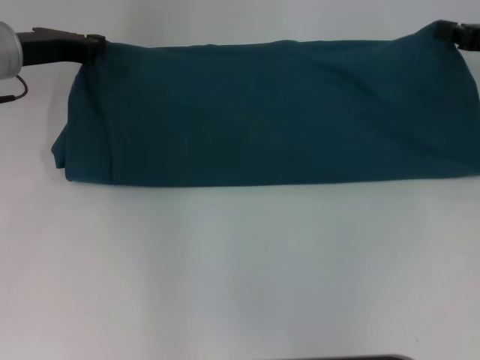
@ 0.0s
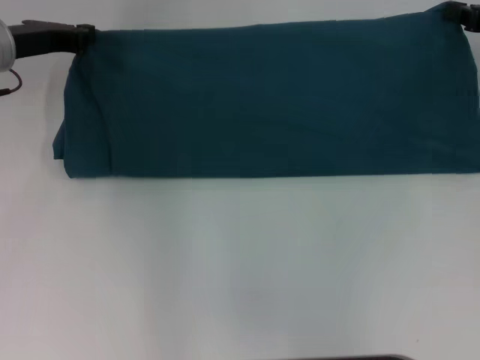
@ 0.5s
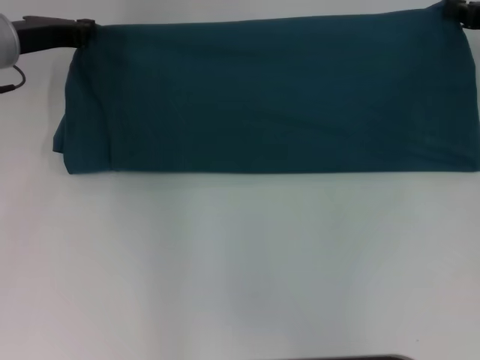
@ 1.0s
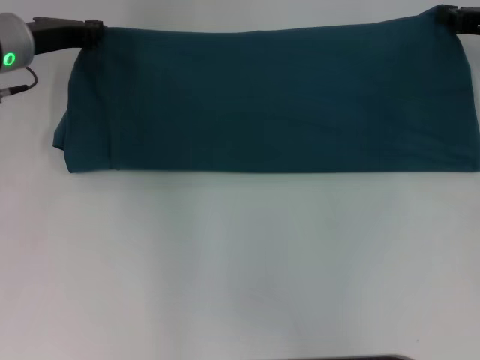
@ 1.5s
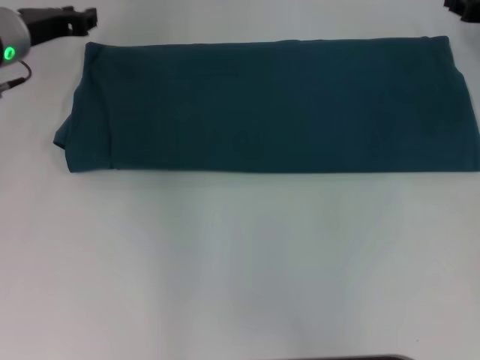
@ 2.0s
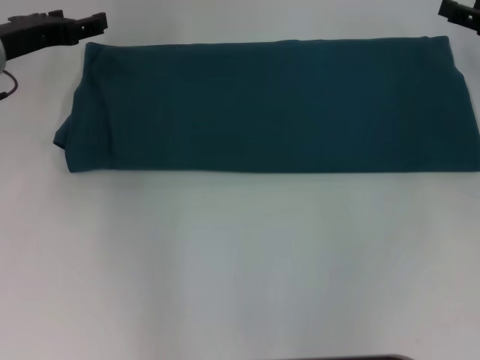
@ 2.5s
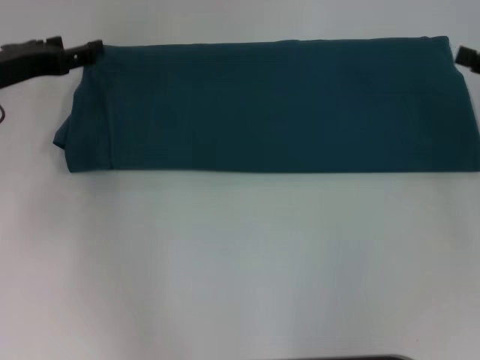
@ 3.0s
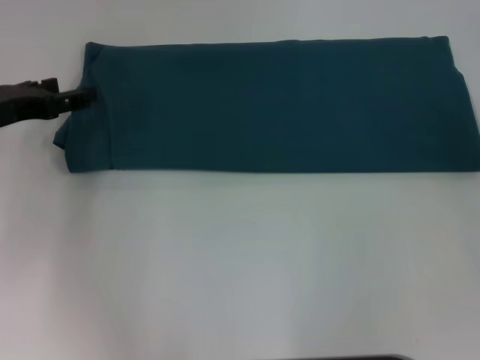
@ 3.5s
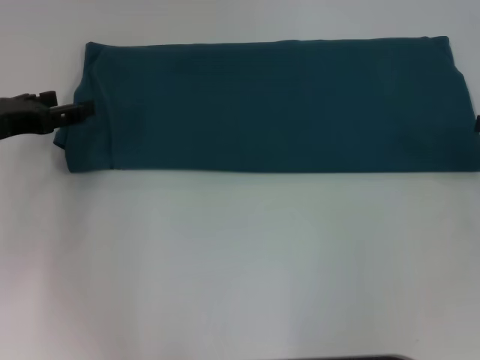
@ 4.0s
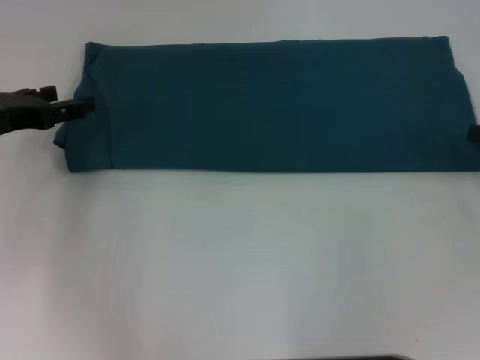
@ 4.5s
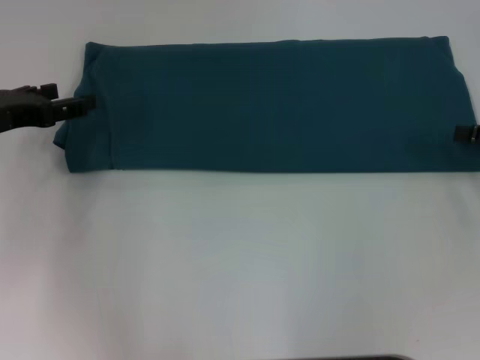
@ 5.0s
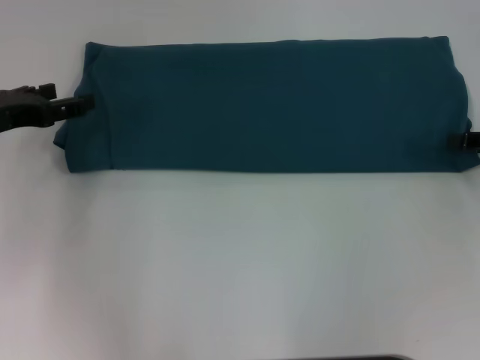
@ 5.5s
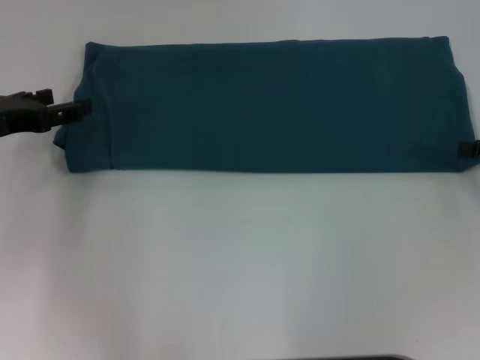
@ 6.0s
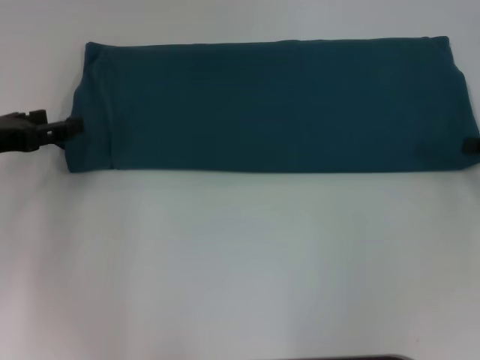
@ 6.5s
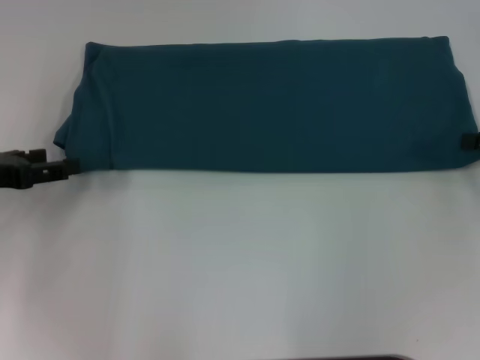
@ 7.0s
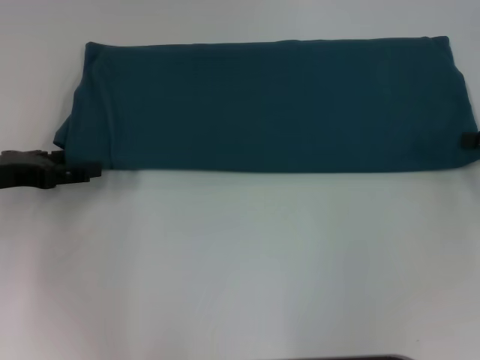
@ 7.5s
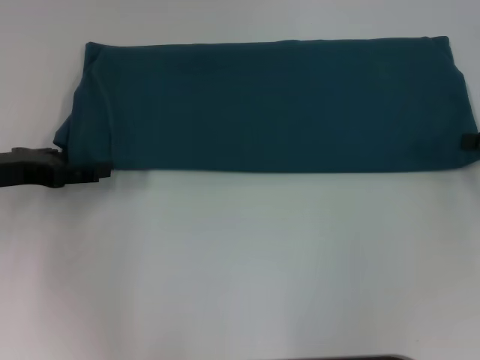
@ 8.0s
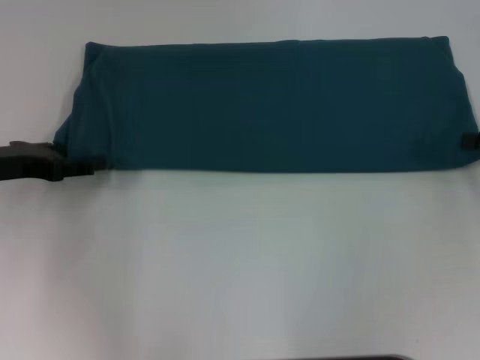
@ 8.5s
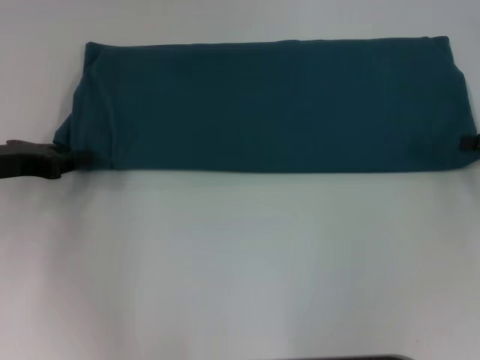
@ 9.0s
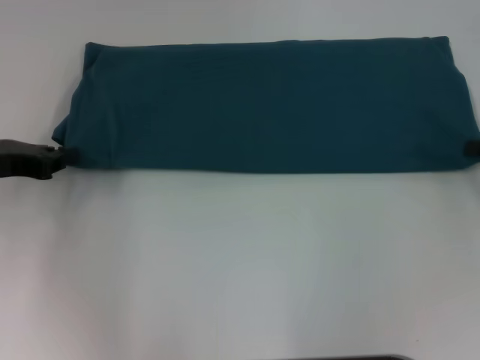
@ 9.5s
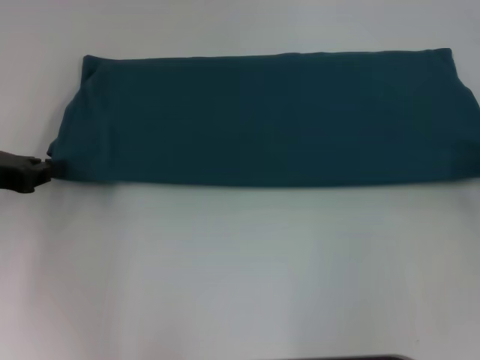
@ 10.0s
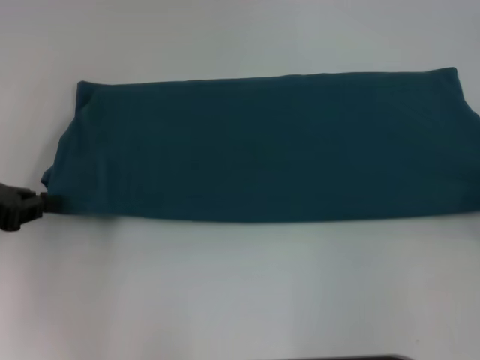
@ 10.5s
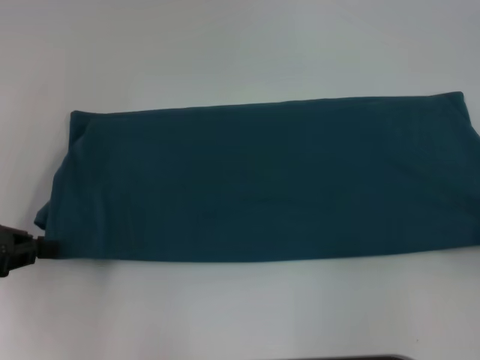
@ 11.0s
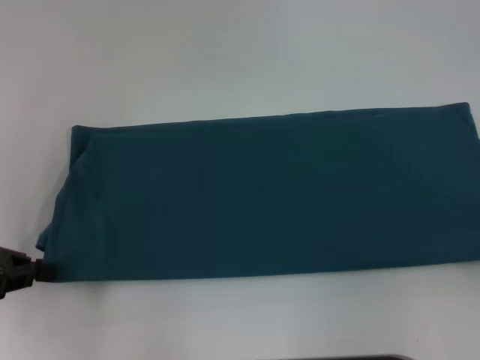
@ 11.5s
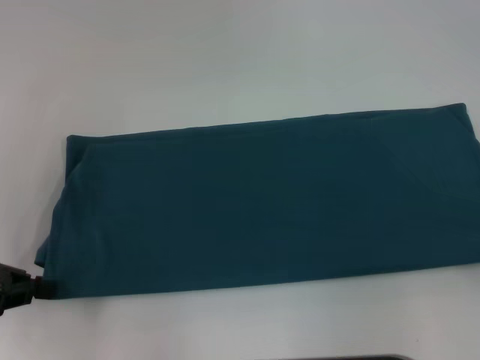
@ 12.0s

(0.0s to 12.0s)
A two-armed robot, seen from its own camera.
Step, 0.0s - 2.0s: Fold the clothes to the left.
Step, 0.0s - 2.0s: Fold the clothes to the right.
0.0s - 2.0s: The grippers move only a little.
2.0s - 4.0s: The left gripper moves backward and to the left, roughly 15 cm, and opens up. The right gripper shifts approximately 15 cm backward and to the right, and opens.
6.0s - 8.0s: There are only small adjustments of the grippers.
8.0s - 10.0s: The left gripper closes its fingers.
10.0s - 12.0s: The two grippers go some 10 cm backward.

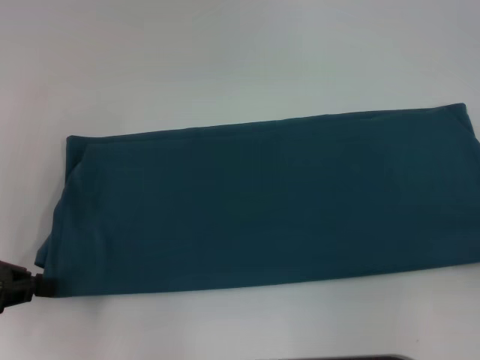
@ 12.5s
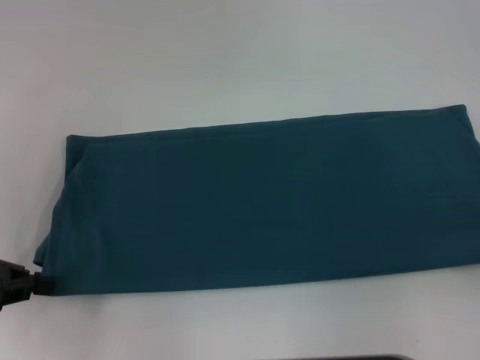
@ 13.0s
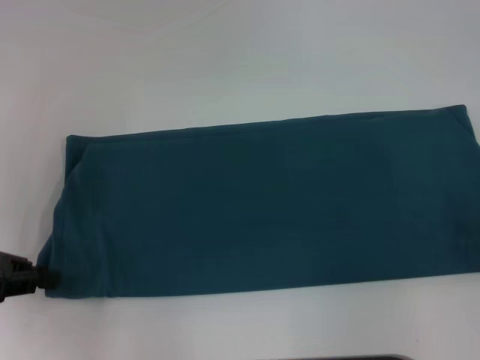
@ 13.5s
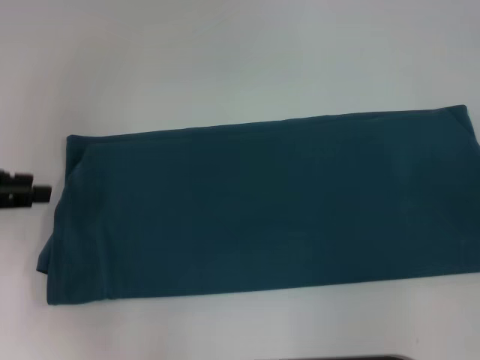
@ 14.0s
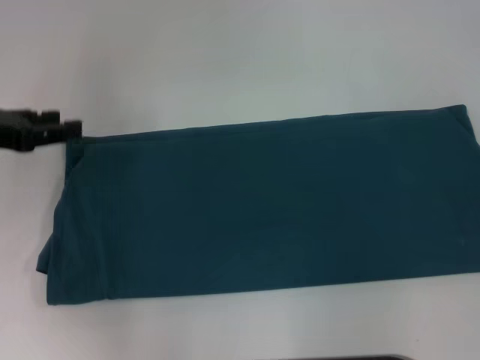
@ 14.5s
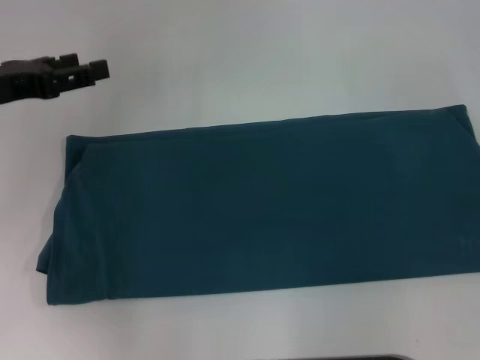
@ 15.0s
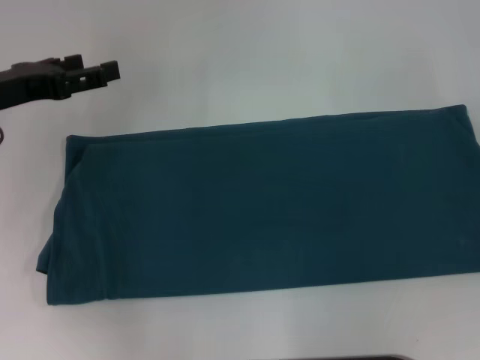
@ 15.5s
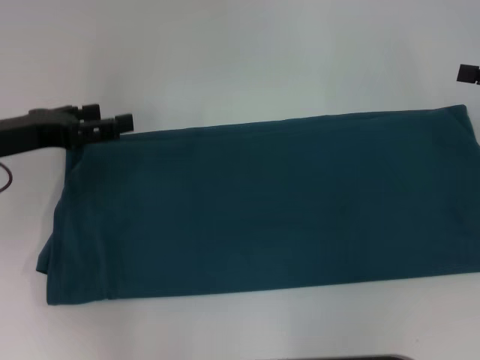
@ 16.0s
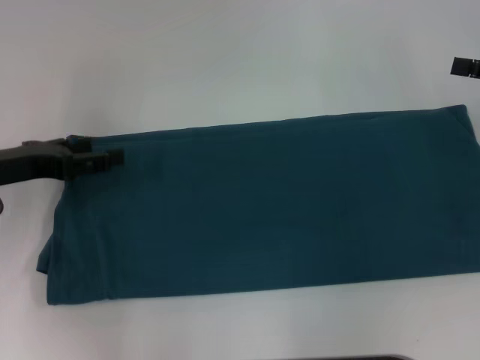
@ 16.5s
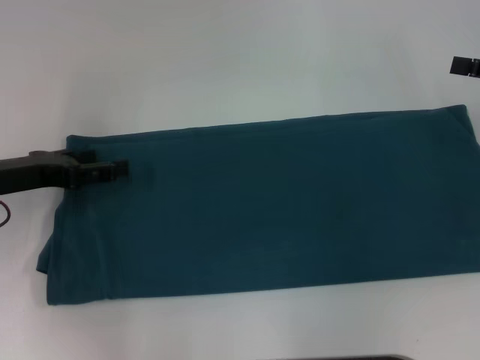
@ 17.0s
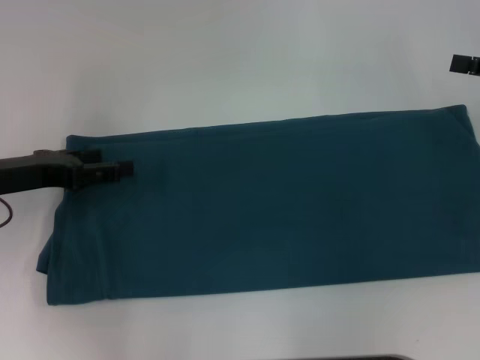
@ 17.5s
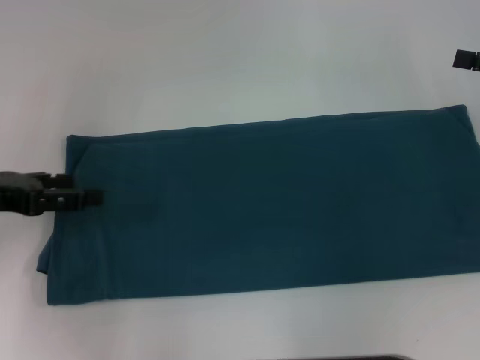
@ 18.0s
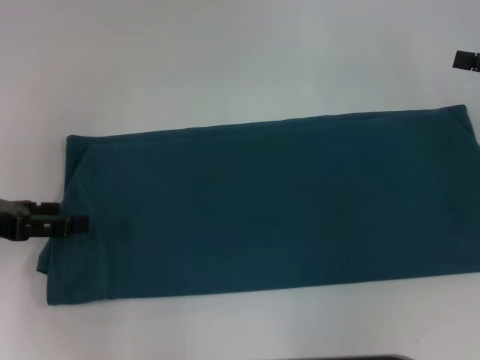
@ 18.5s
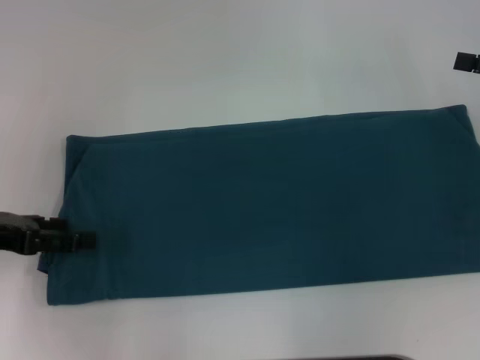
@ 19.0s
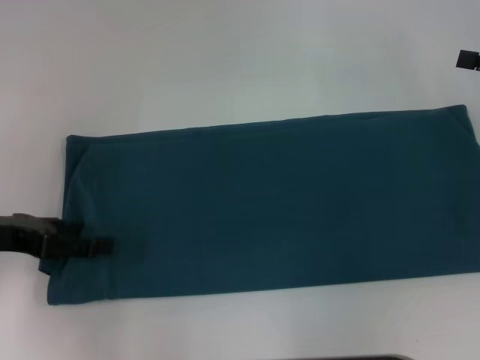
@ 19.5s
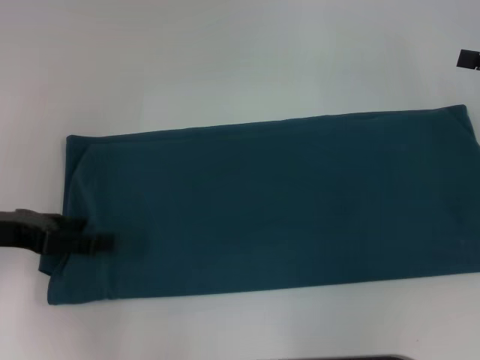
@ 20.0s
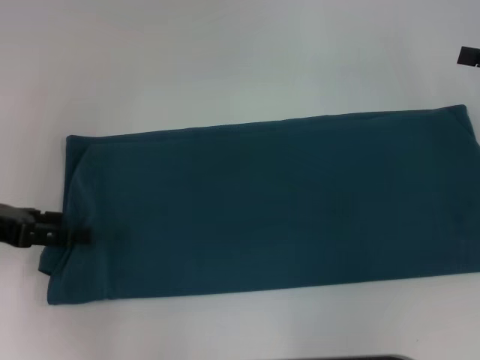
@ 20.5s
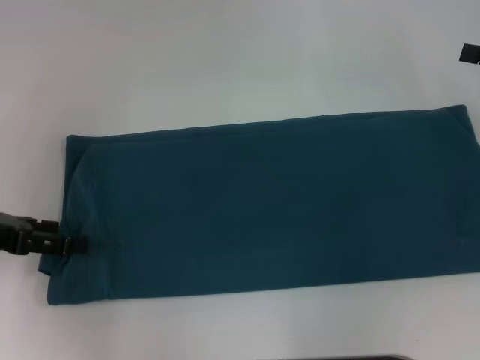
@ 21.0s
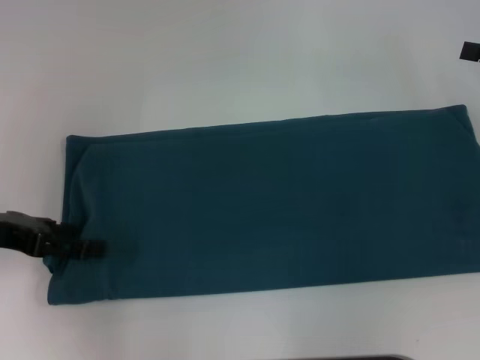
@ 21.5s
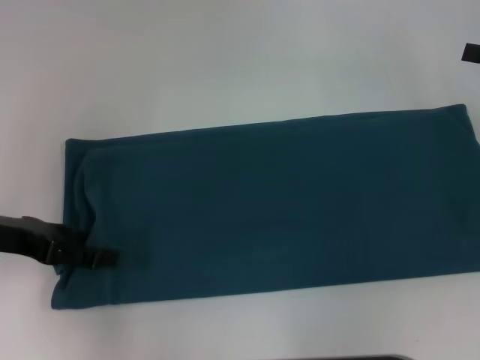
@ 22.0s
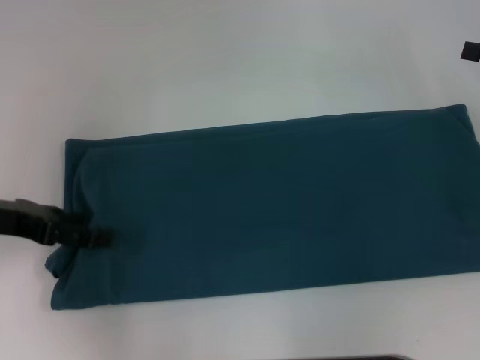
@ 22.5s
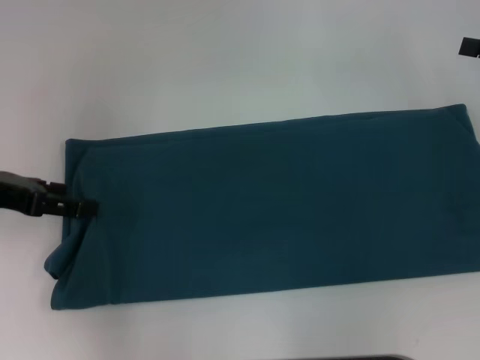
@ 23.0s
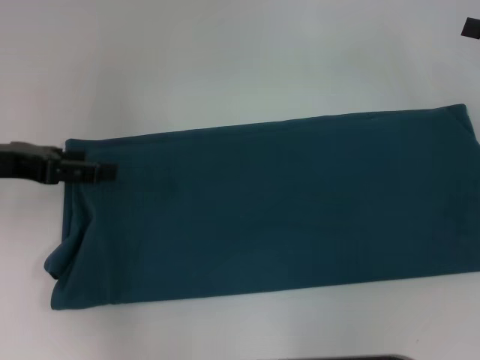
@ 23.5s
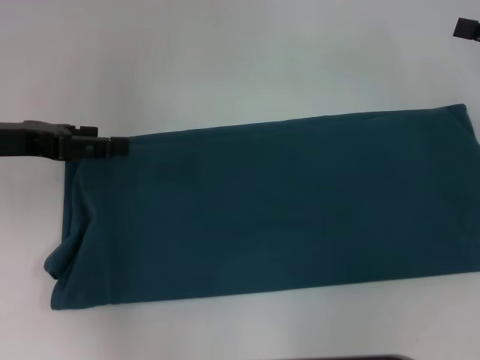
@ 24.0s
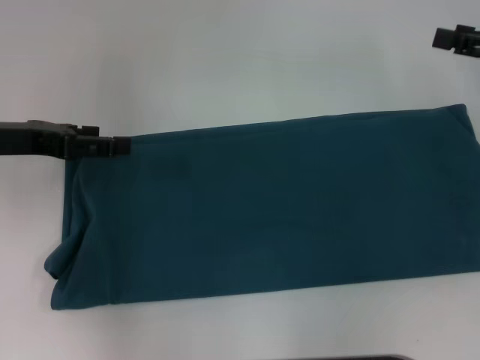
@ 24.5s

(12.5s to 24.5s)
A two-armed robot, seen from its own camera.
12.5s - 14.5s: Both grippers travel together forward, about 5 cm. The left gripper opens up. The right gripper opens.
14.5s - 16.5s: The left gripper changes place by about 5 cm, and opens up.
16.5s - 18.5s: The left gripper moves some 5 cm.
18.5s - 22.5s: There are only small adjustments of the grippers.
22.5s - 24.5s: There are only small adjustments of the grippers.

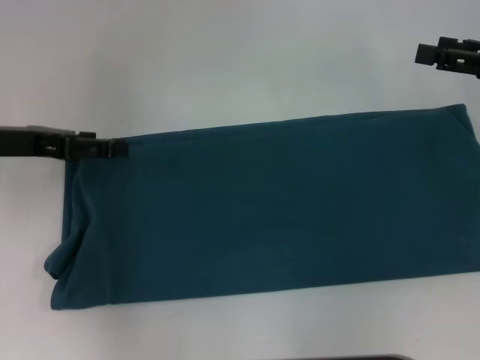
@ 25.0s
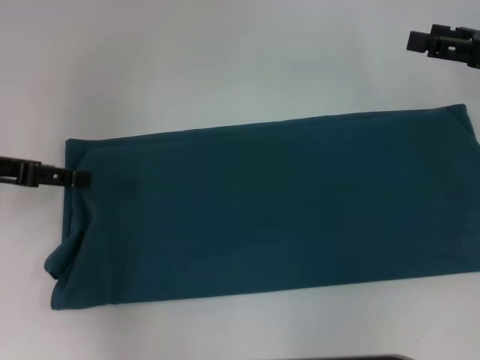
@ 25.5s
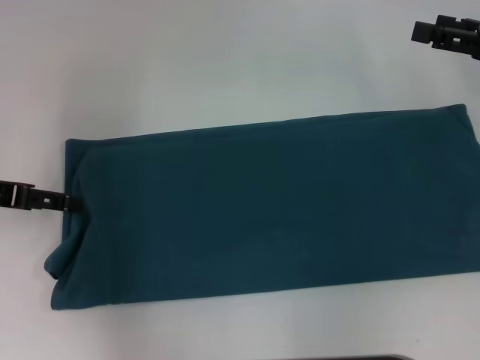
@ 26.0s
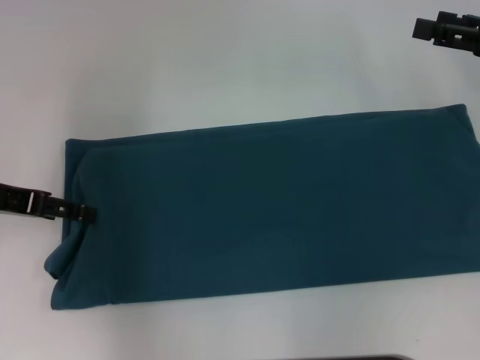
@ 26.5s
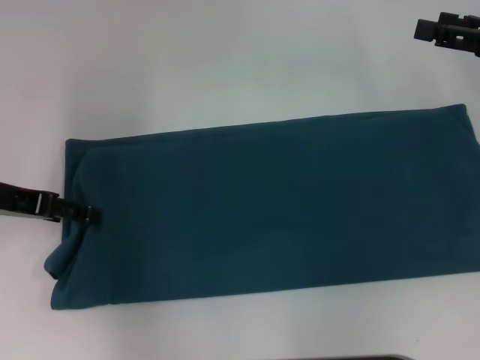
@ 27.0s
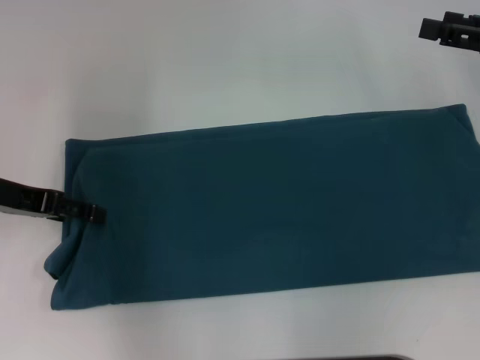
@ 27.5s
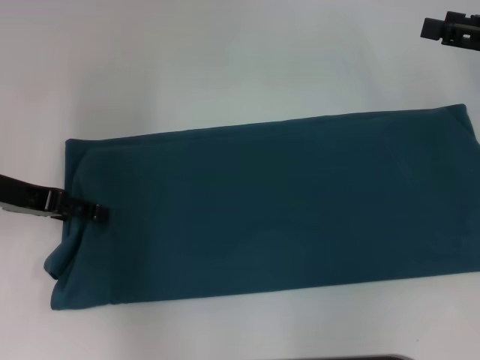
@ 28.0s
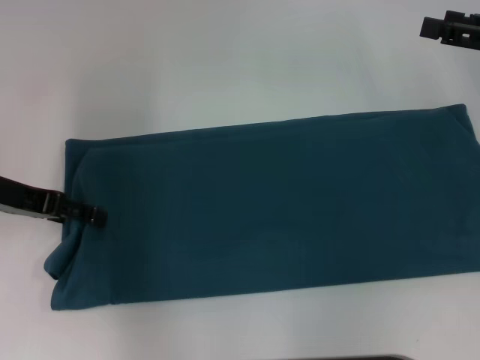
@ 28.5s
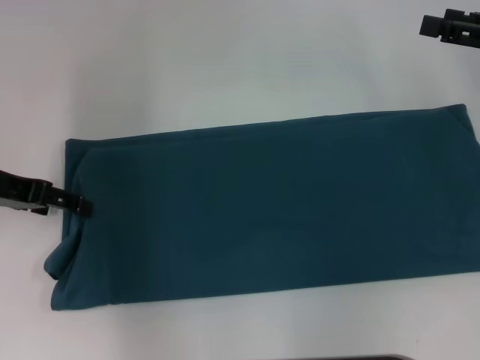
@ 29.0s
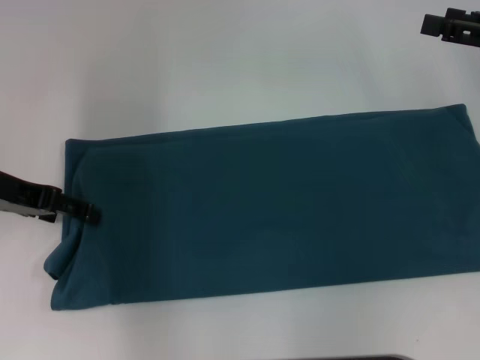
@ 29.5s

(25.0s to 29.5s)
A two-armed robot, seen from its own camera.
27.0s - 29.5s: There are only small adjustments of the grippers.
